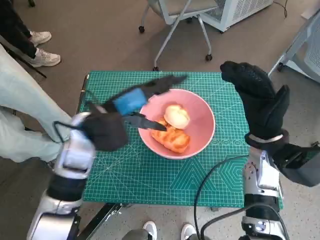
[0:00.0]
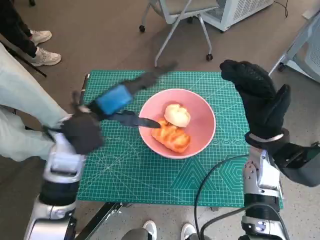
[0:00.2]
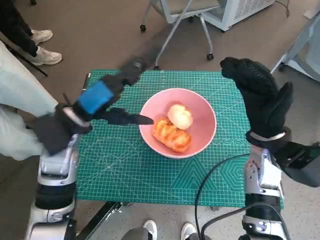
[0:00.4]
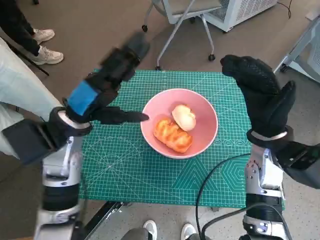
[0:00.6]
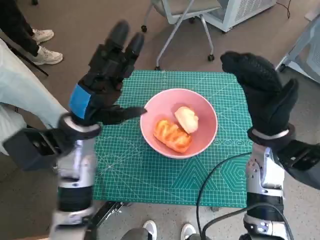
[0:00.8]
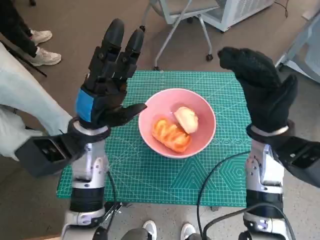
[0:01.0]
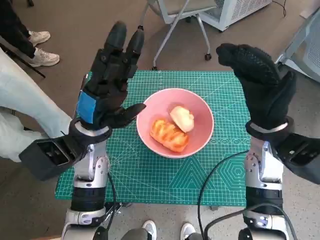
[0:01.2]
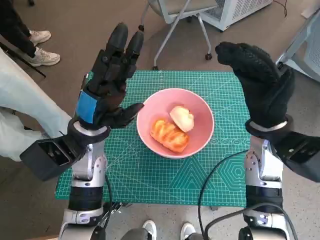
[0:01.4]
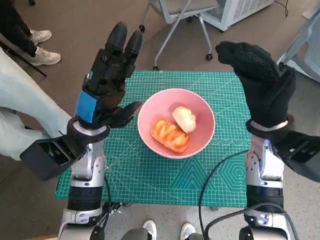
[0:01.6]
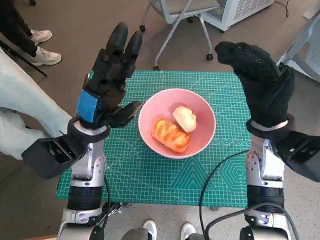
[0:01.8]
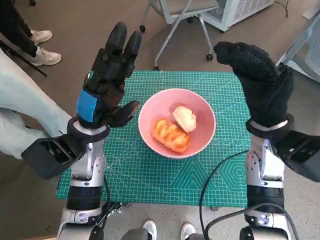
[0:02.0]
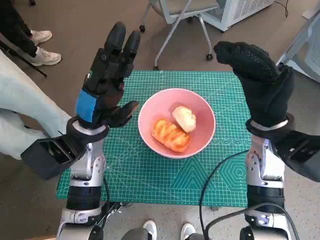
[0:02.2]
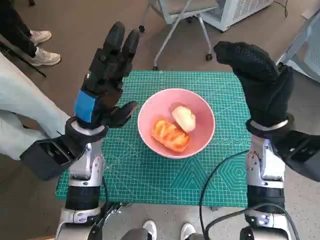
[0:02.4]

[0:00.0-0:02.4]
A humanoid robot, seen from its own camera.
Task of the whole recording: Push the bowl into the center of the table and put the bread into the bowl.
0:01.2 to 0:02.4: The hands stay close to where they were, moving slightly.

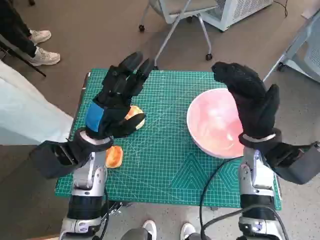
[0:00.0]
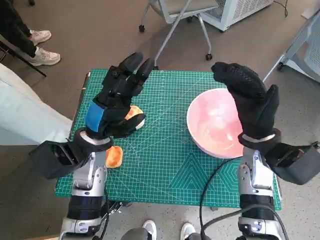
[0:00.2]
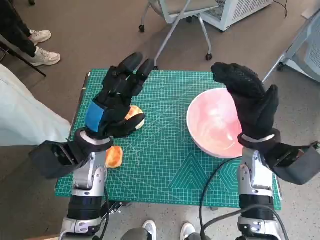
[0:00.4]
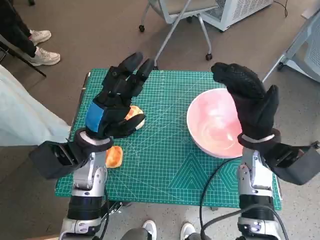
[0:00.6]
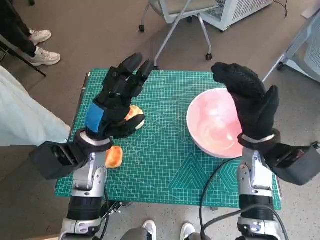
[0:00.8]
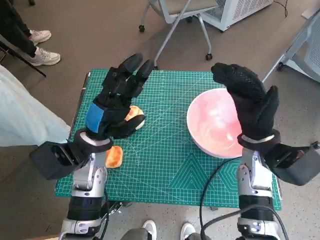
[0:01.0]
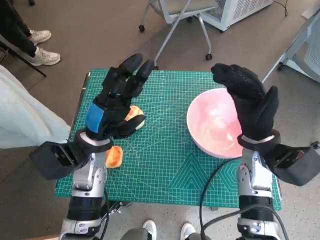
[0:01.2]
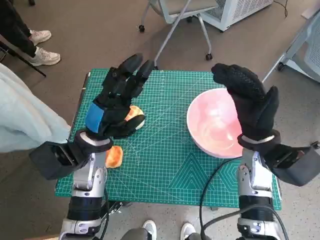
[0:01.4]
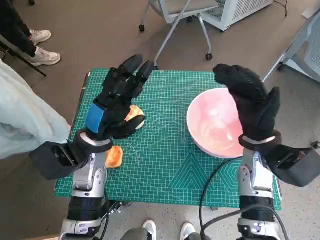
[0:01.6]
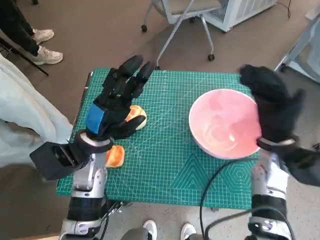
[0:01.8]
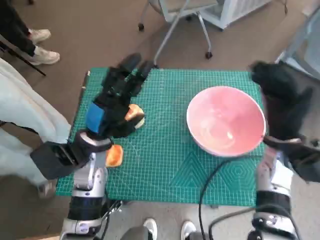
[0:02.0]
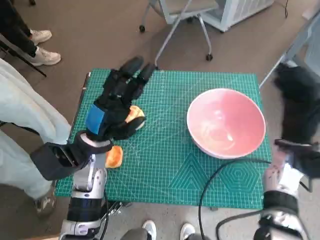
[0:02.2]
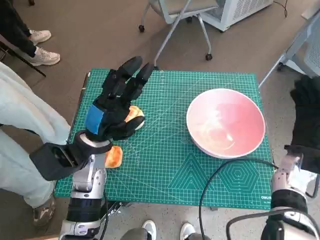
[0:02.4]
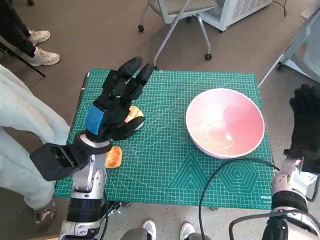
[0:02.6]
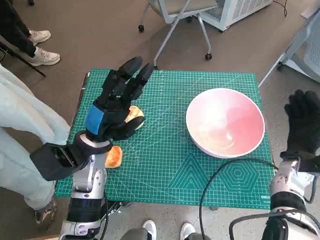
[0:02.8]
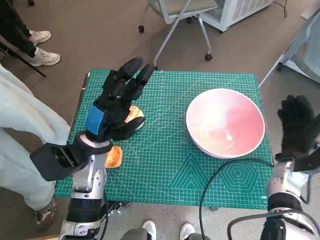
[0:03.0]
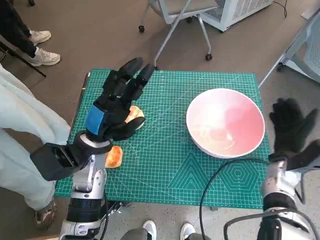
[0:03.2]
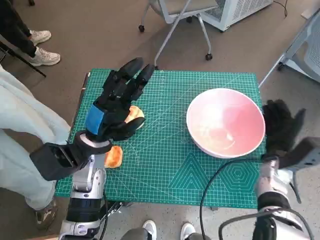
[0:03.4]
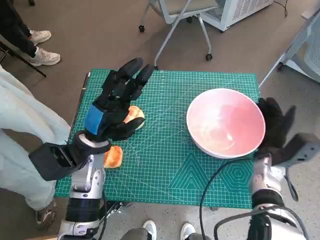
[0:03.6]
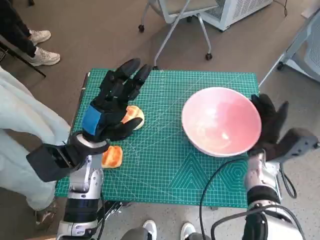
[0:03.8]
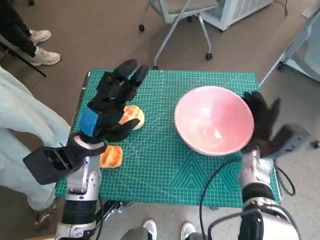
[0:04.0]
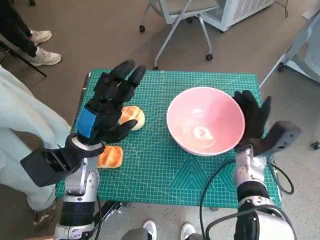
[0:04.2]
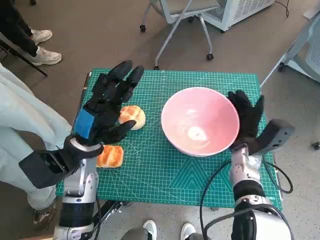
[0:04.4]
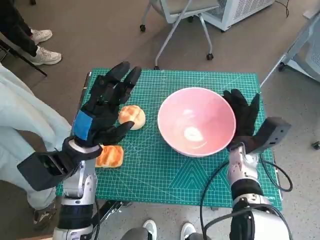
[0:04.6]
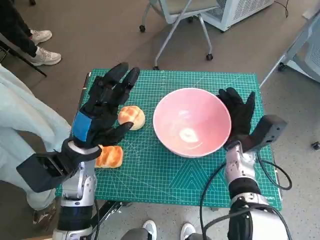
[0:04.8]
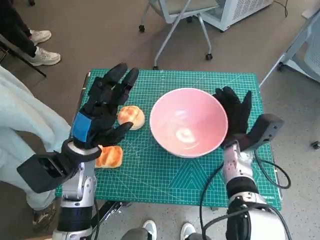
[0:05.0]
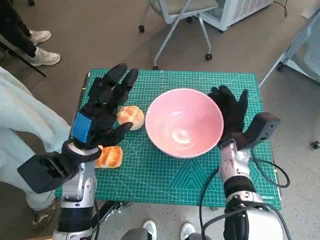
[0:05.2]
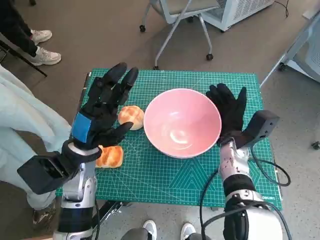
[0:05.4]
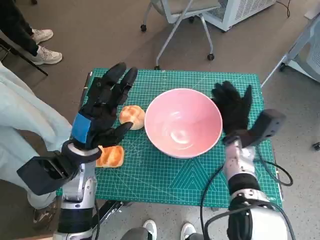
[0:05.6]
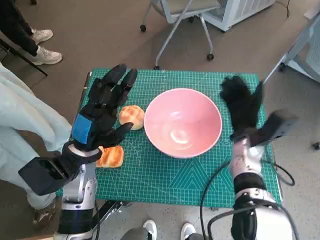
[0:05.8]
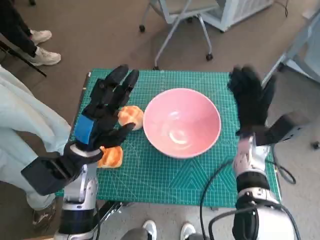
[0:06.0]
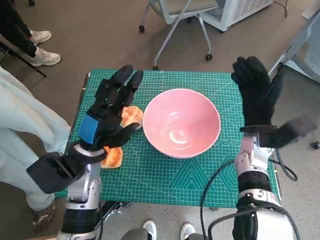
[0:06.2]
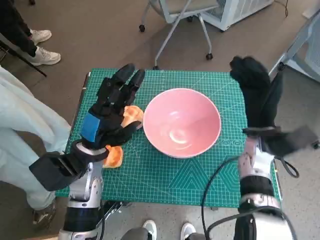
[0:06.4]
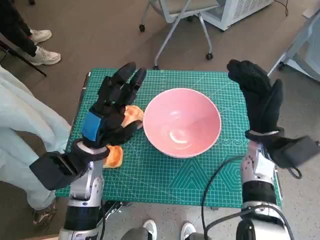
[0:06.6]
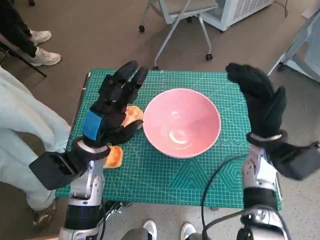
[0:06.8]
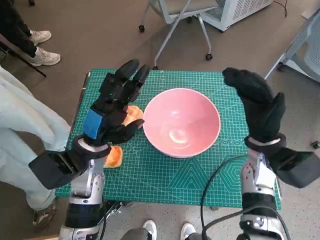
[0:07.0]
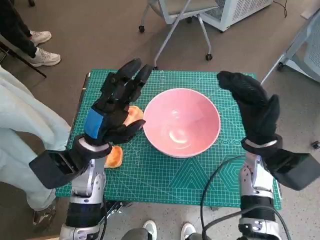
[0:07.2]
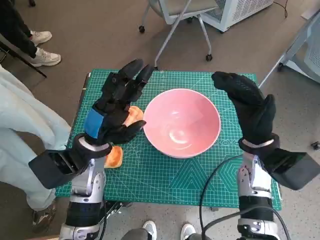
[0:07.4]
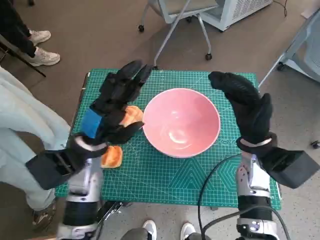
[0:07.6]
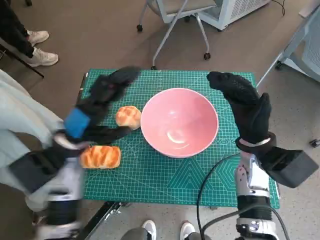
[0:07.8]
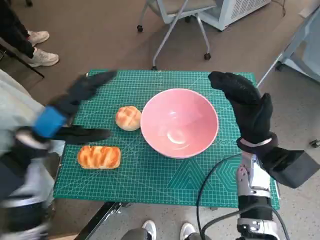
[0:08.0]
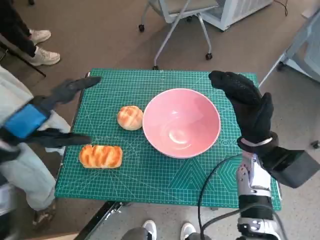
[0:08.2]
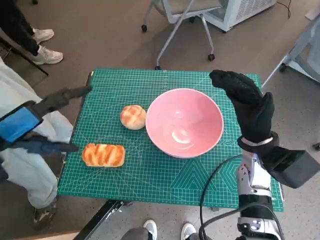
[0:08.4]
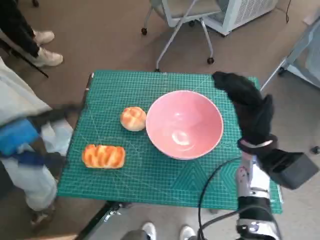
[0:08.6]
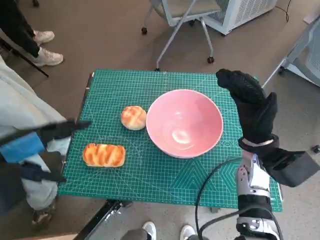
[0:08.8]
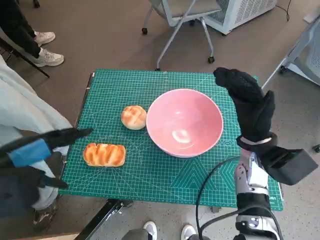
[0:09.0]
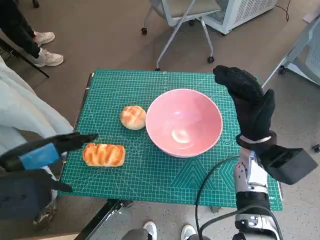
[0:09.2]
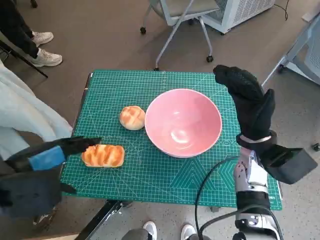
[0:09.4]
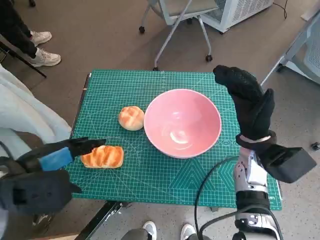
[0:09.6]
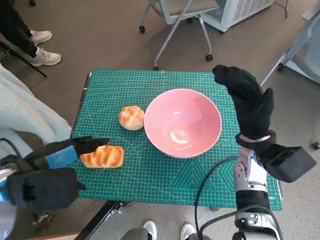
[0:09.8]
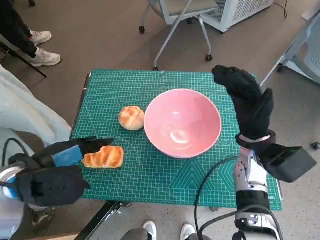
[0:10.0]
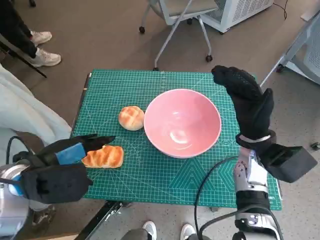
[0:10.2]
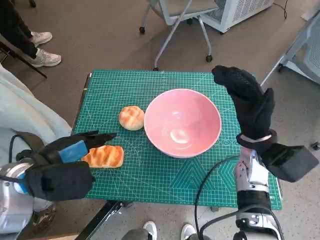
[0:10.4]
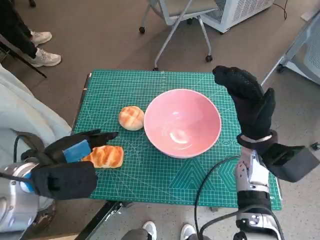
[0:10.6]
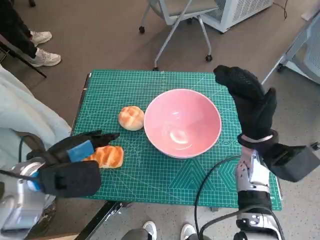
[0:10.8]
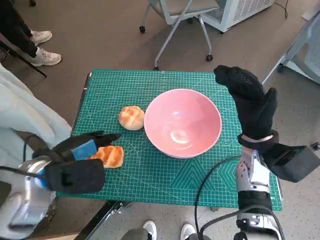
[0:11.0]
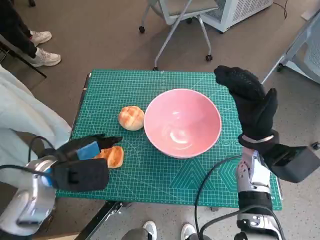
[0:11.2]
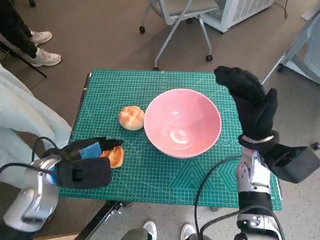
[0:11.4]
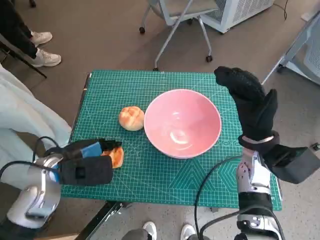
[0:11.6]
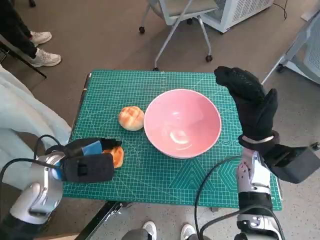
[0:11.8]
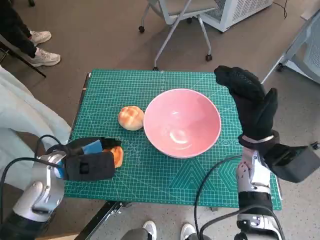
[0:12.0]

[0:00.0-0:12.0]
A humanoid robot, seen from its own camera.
Task of the whole recording: Push the bowl into the center of the table and put the bread into the bowl.
Step, 0:00.0 to 0:06.0: Move the pink bowl to the center of table with right hand.
0:01.6 to 0:03.0: The right hand heads to the right and downward, covering about 15 cm.
0:03.0 to 0:04.4: The right hand is displaced to the left by about 10 cm.
0:06.0 to 0:07.6: The right hand changes place by some 5 cm.
0:07.6 to 0:09.0: The left hand goes some 15 cm upward, to the left and backward.
0:09.0 to 0:10.4: The left hand shifts approximately 5 cm downward.
0:10.4 to 0:12.0: The left hand moves downward, about 5 cm.

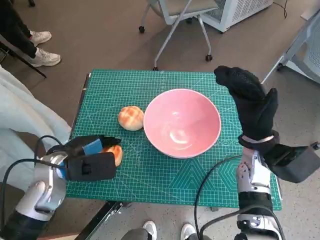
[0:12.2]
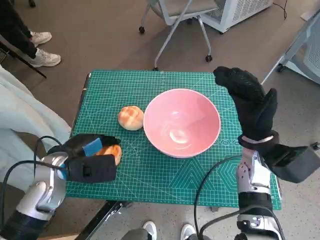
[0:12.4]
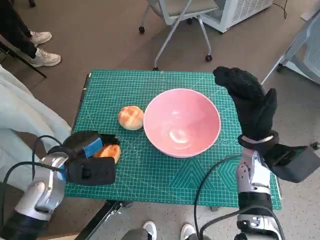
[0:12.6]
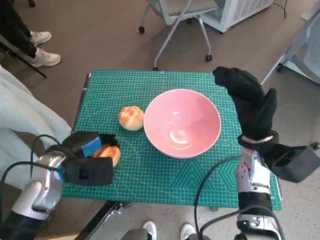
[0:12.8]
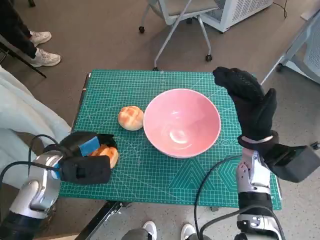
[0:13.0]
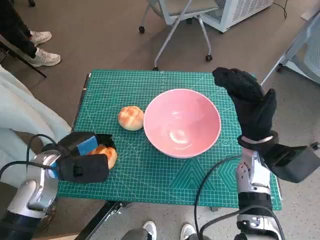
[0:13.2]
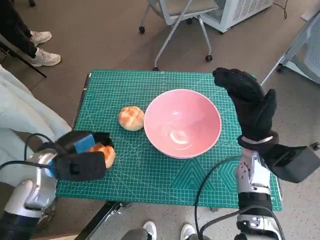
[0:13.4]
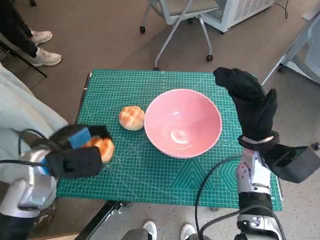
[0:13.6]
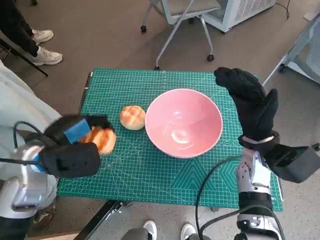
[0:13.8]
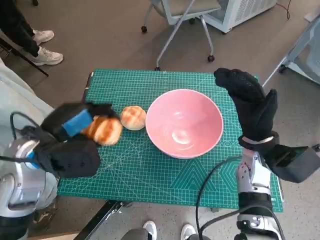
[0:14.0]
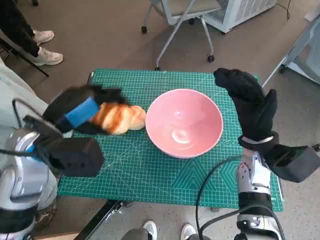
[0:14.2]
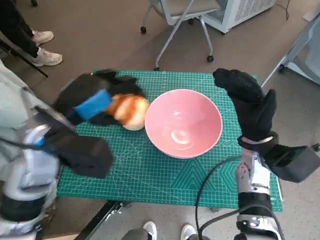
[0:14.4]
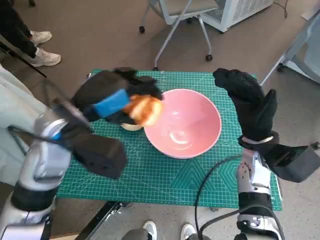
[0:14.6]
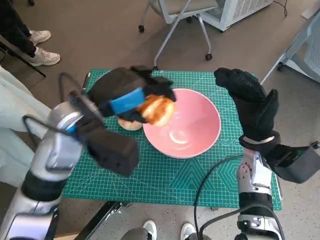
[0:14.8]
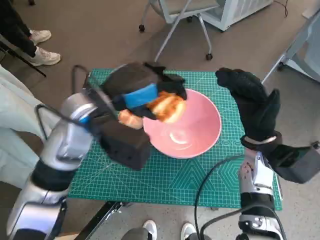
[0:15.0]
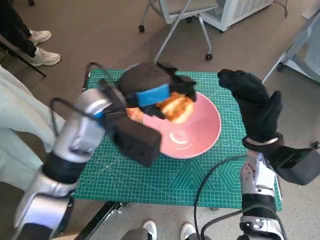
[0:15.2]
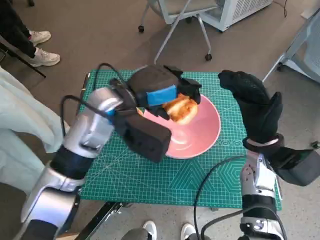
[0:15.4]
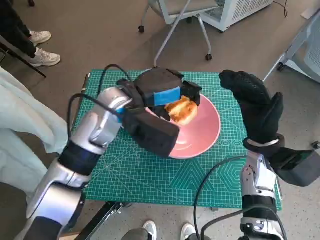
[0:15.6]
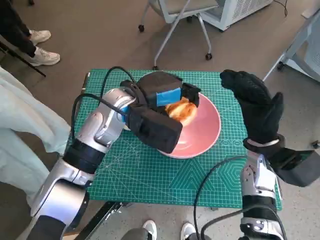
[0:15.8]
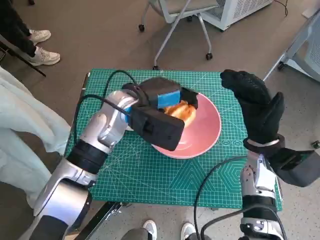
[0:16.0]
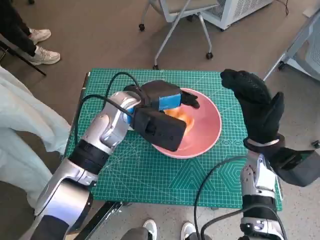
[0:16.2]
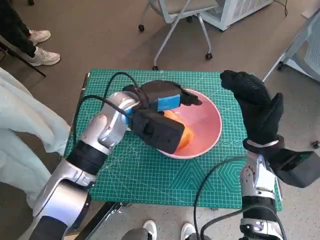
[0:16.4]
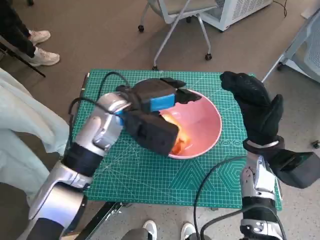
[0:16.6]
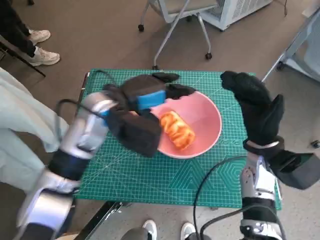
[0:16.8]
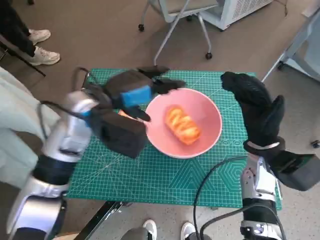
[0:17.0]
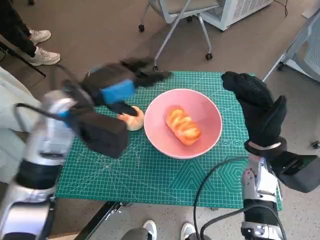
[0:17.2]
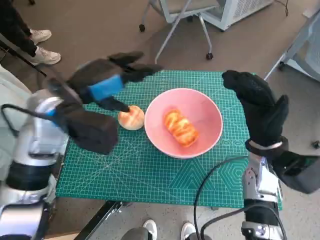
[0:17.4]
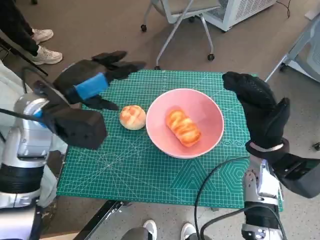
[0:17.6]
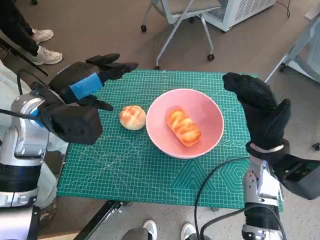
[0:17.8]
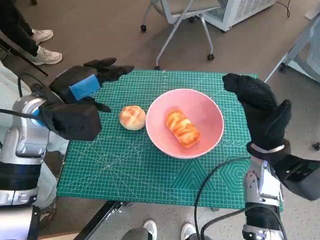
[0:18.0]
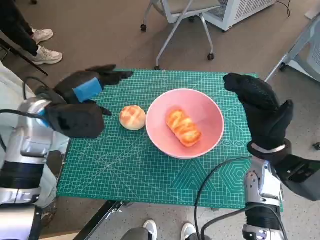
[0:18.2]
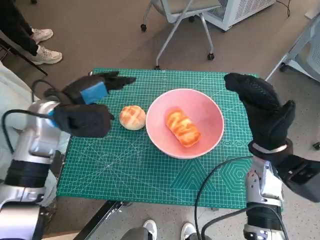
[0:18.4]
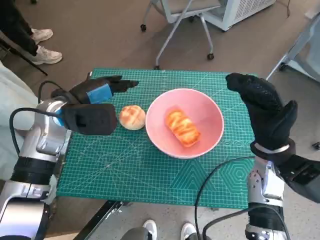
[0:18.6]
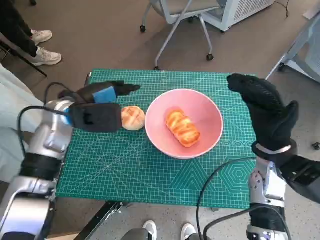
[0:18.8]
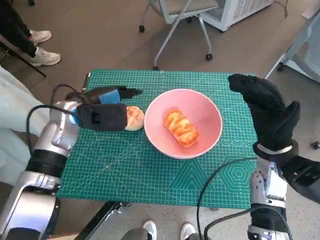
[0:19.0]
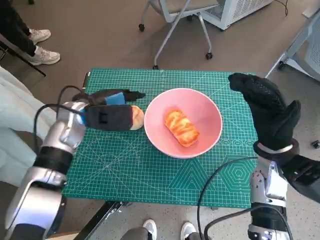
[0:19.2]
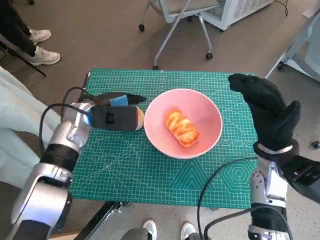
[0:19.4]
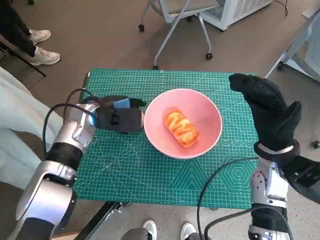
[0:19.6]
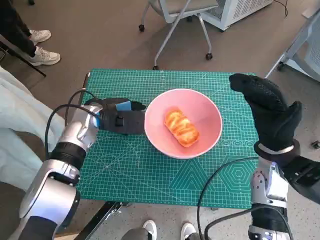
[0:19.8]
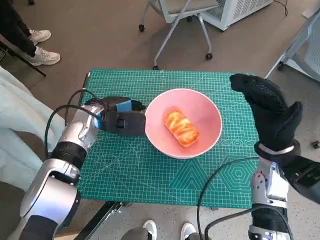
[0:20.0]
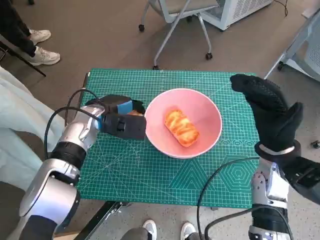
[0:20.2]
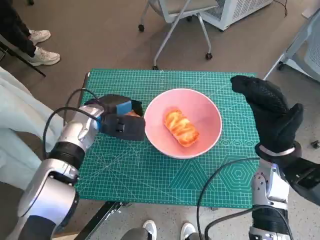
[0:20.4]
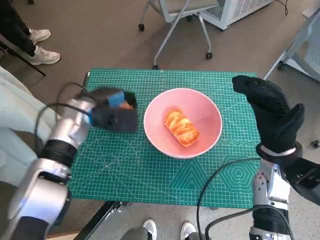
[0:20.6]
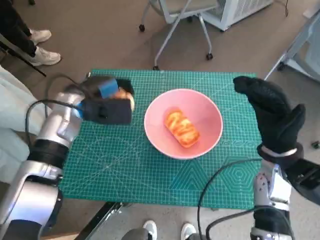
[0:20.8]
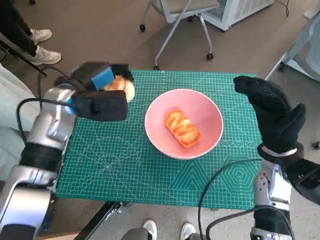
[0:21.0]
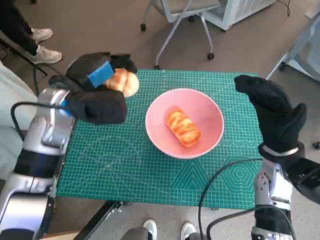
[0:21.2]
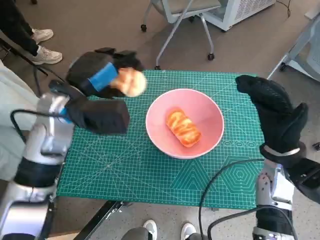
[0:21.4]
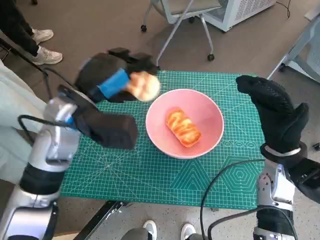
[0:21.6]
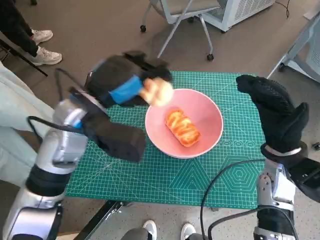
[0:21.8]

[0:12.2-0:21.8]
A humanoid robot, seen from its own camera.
Task of the whole recording: Push the bowl into the center of the table and put the bread into the bowl.
Step, 0:13.0 to 0:17.0: Place the long bread in pink bowl with left hand.
Step, 0:17.2 to 0:20.2: Grasp the round bread with left hand.
0:12.2 to 0:13.8: The hands move only a little.
0:13.8 to 0:15.4: The left hand goes some 15 cm to the right, forward and upward.
0:17.0 to 0:18.6: The left hand moves to the left, roughly 10 cm.
0:18.6 to 0:20.2: The left hand shifts roughly 5 cm downward.
0:20.2 to 0:21.8: The left hand travels upward and backward by about 10 cm.
